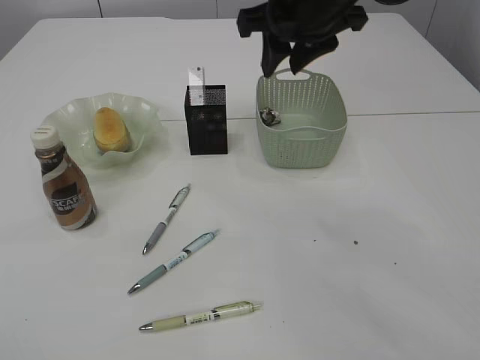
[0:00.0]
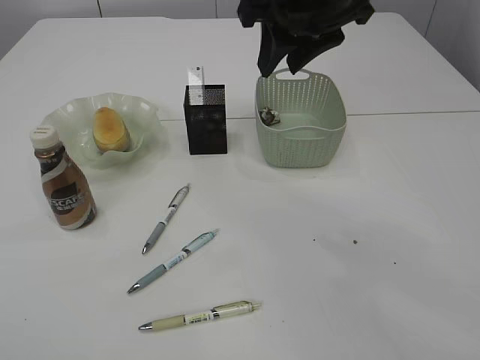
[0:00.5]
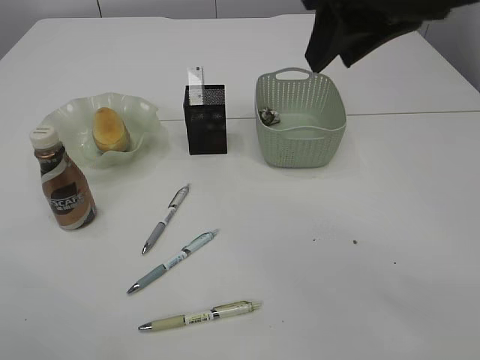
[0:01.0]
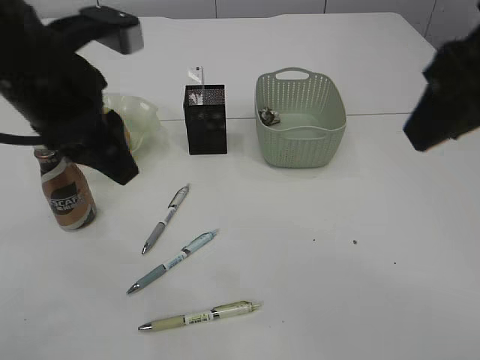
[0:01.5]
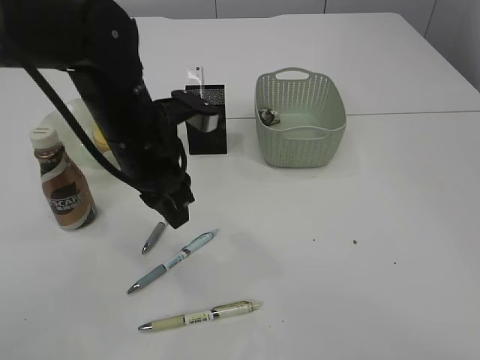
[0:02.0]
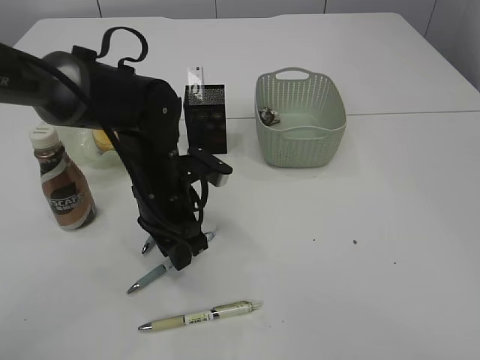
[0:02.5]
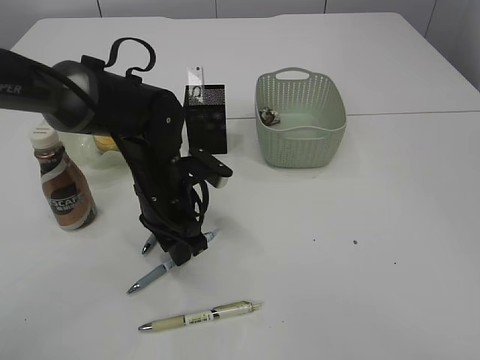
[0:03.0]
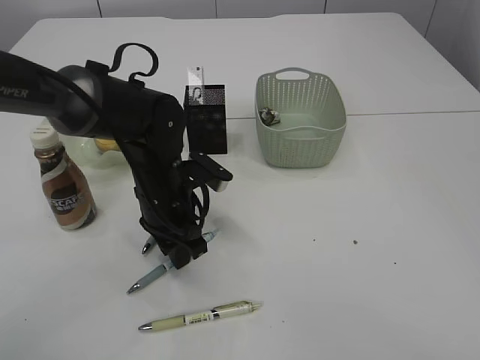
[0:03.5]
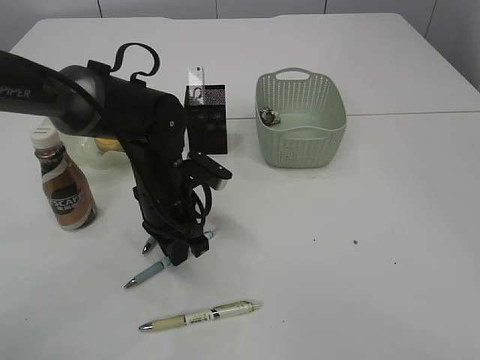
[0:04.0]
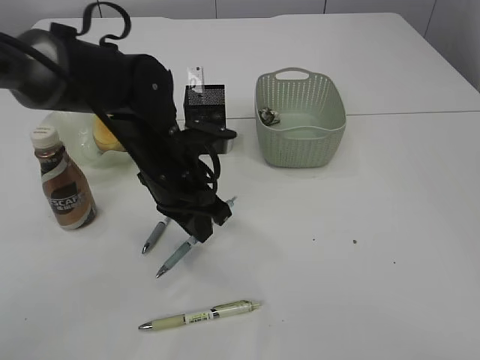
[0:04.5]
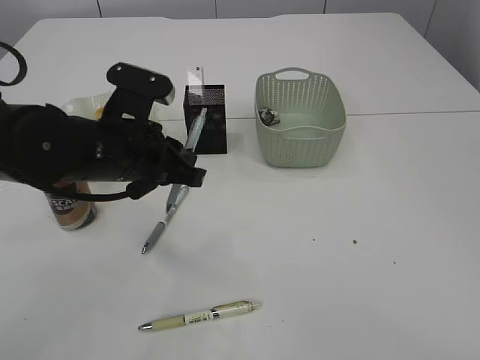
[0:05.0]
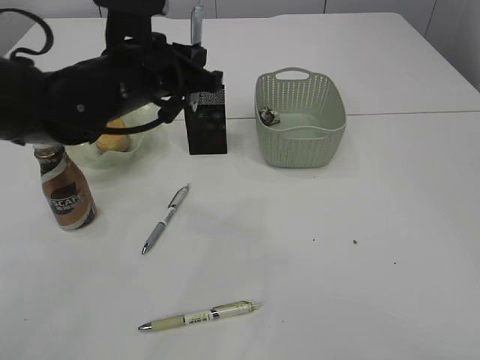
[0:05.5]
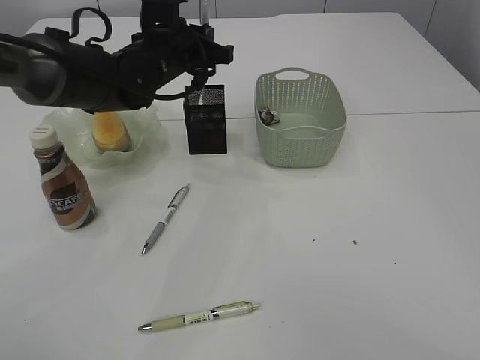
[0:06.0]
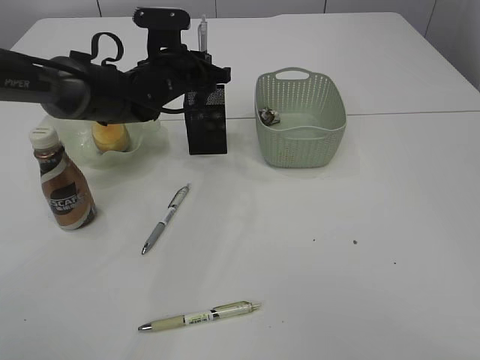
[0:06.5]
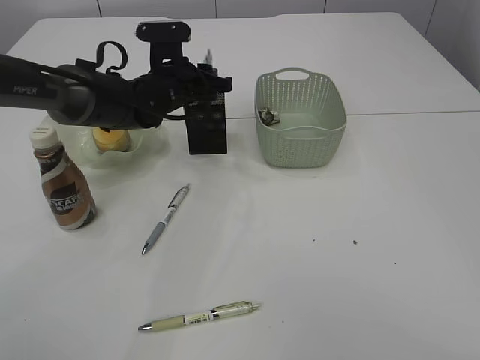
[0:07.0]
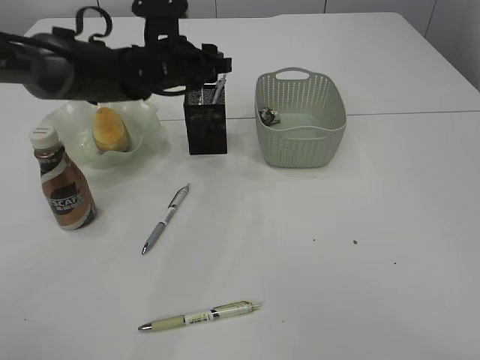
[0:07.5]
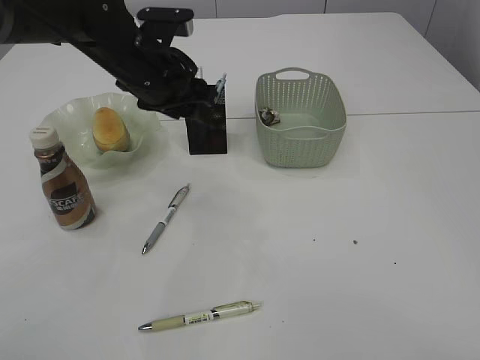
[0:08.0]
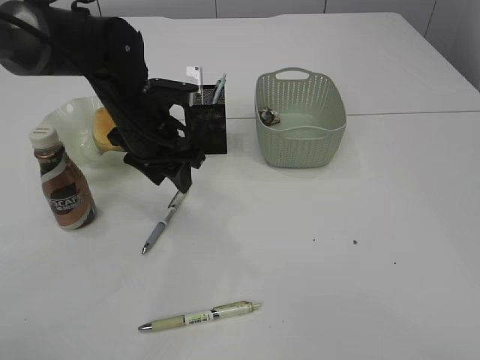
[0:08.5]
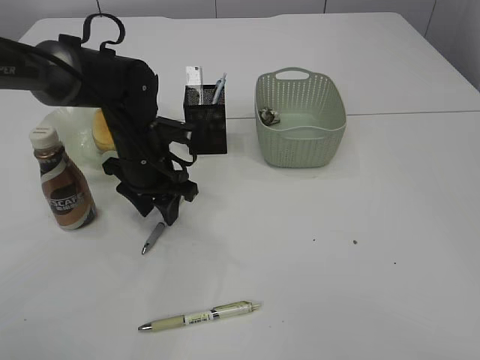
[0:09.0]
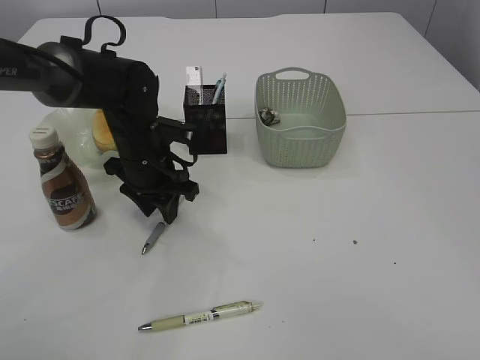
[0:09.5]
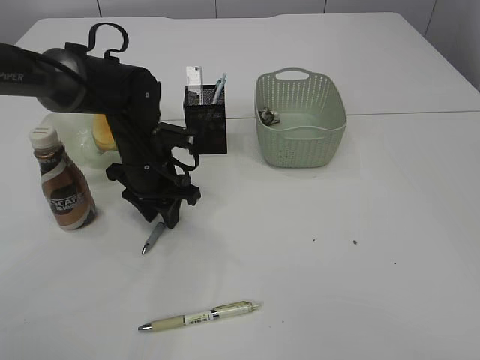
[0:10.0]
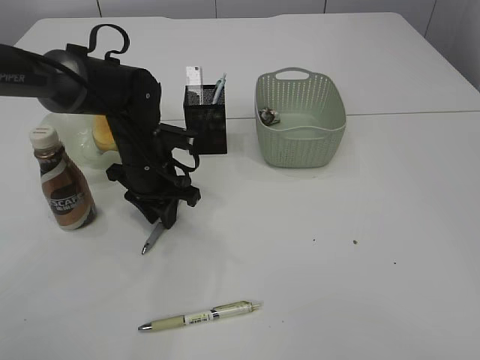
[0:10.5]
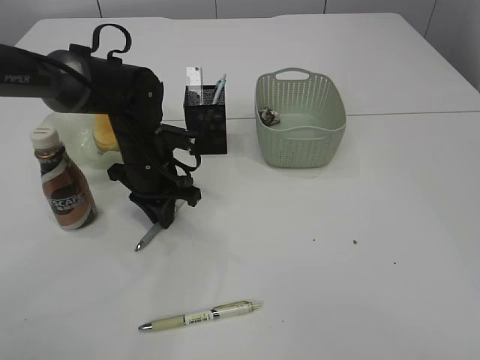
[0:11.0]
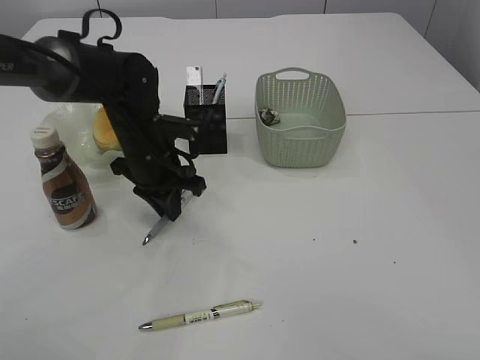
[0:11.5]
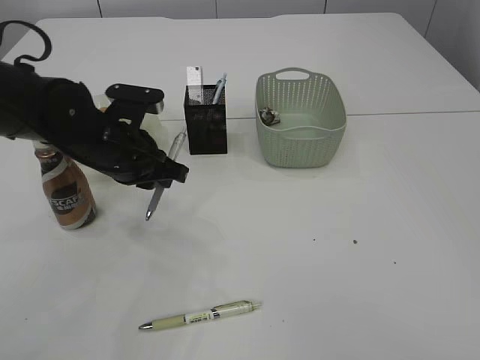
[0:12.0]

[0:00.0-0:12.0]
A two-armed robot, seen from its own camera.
Step, 0:00.0 to 0:04.5: Pick up the pen with left arm.
Step, 0:05.0 to 0:07.5: Place the pen into the pen holder.
Step, 0:08.0 to 0:11.5: Pick up the pen with left arm.
0:00.0 to 0:02.0: The right gripper goes roughly 30 cm backward and to the right. Meanwhile the left gripper moves forward and to the right, approximately 35 cm.
0:02.0 to 0:04.0: The left gripper moves downward, approximately 10 cm, and closes its fingers.
0:04.0 to 0:06.0: The left gripper shifts some 15 cm upward and forward.
0:06.0 to 0:08.0: The left gripper opens its fingers.
0:08.0 to 0:10.0: The left gripper travels downward by about 10 cm.
0:10.0 to 0:12.0: The left gripper moves some 5 cm, and closes.

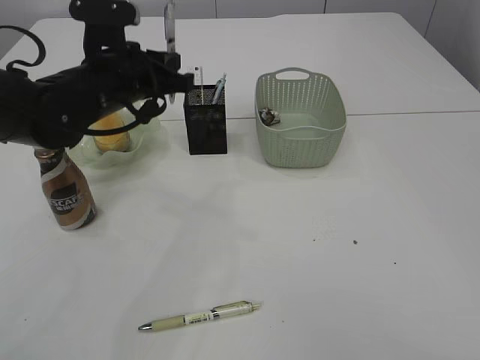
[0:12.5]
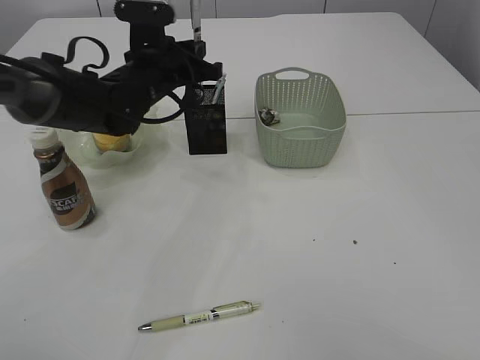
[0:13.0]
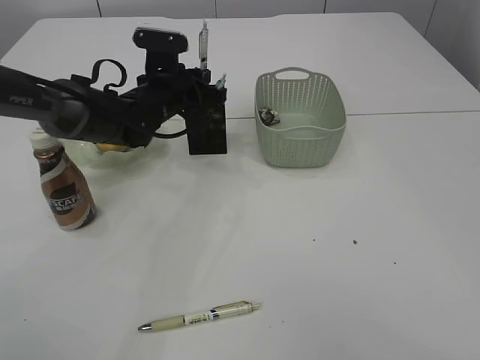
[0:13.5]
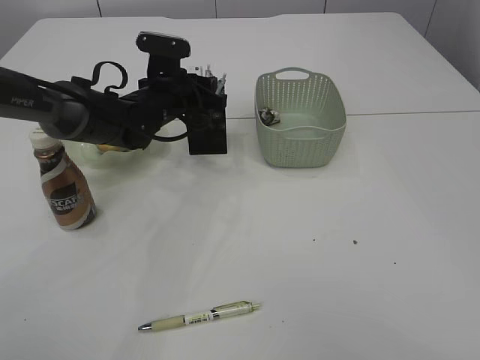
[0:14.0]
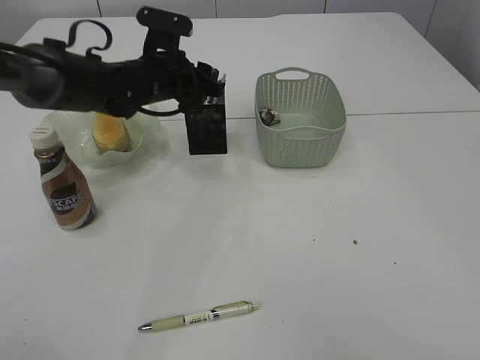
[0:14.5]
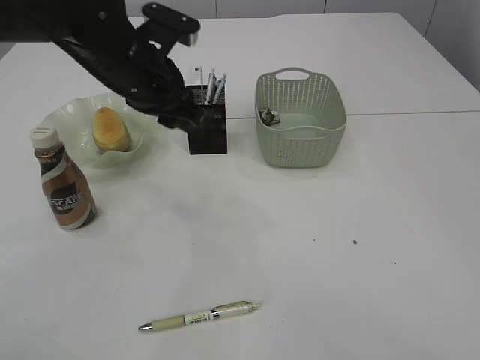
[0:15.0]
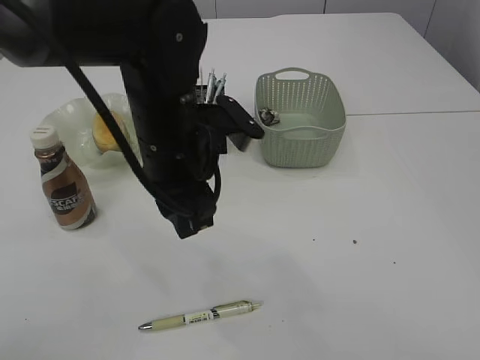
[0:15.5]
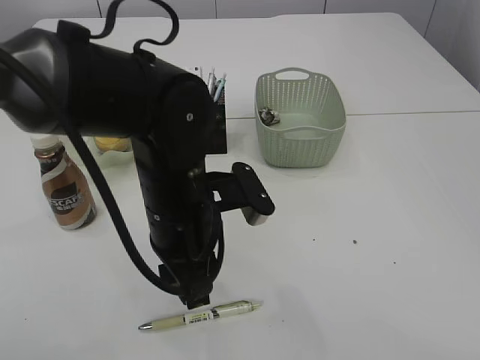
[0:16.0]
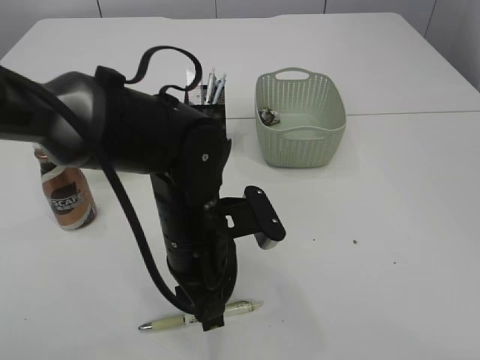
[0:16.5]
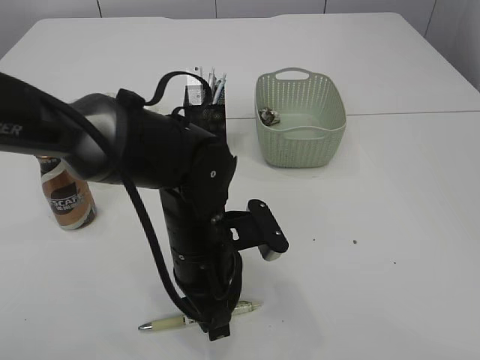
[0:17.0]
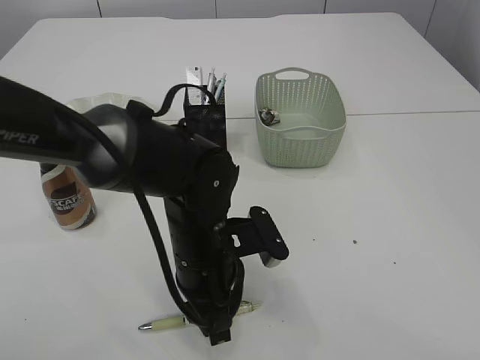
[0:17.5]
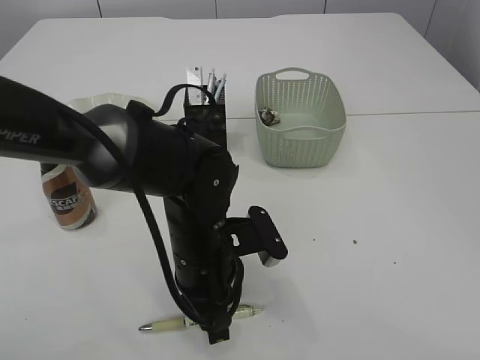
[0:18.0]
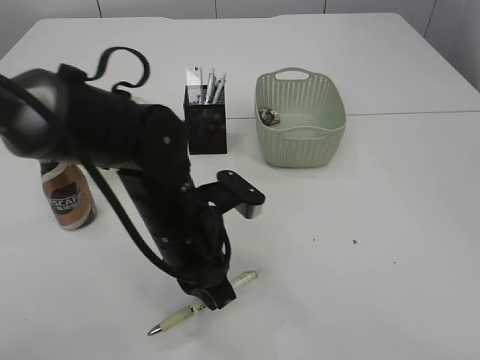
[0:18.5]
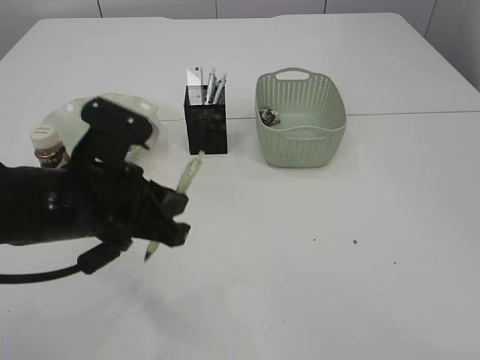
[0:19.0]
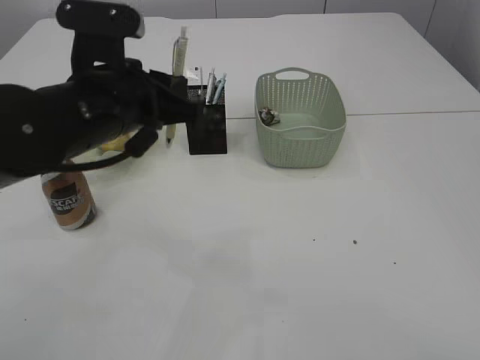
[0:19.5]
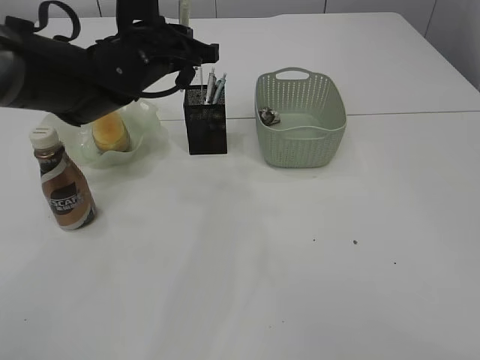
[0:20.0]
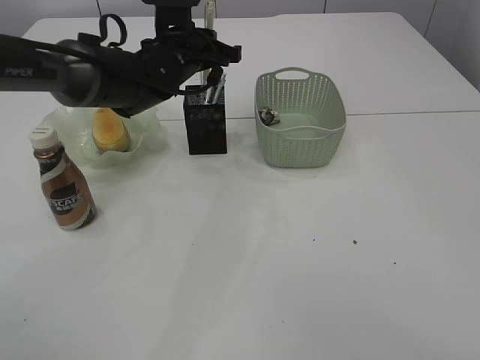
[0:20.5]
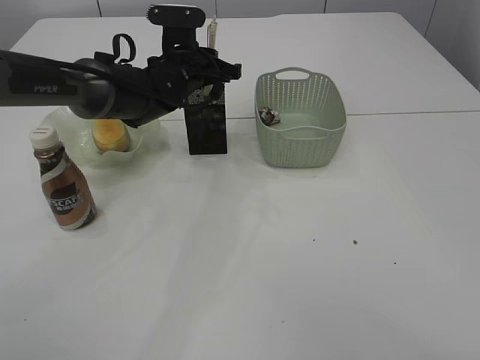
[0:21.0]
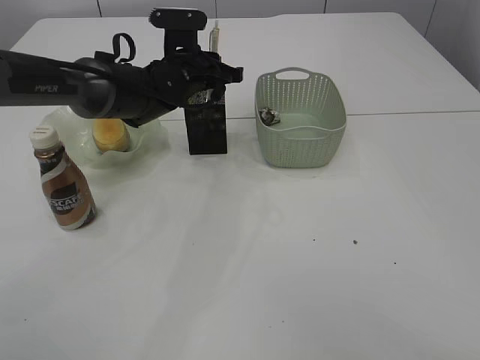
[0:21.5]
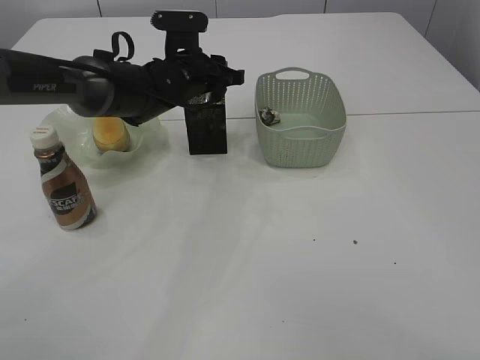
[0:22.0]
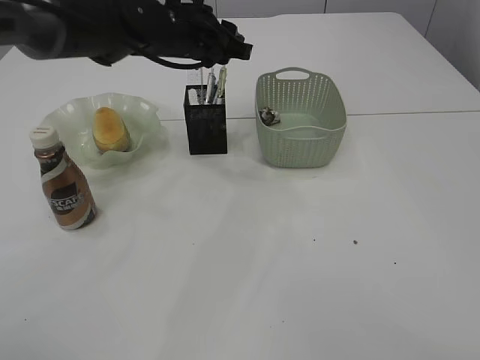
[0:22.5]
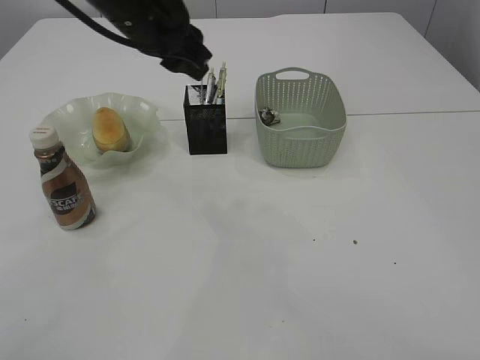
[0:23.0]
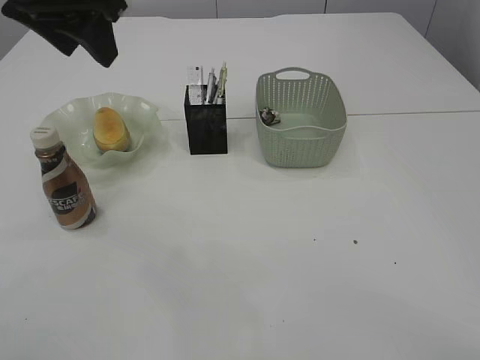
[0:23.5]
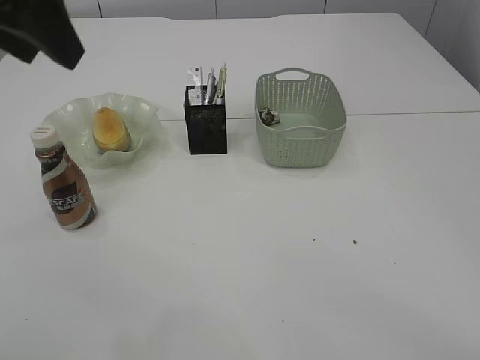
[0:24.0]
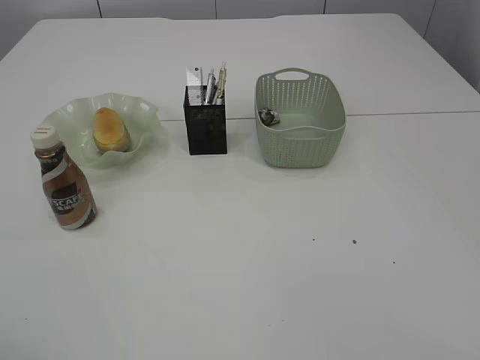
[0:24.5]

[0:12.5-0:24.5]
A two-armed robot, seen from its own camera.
Step, 0:12.5 to 0:14.5: Place the pen into the pen holder.
Step, 0:15.0 to 0:19.0: Pick up the pen with left arm.
Step, 0:19.5 to 0:22.5: Place the pen into the pen holder.
0:12.5 to 0:14.5: The left gripper travels forward by about 10 cm, and opens up.
0:14.5 to 0:16.5: The left gripper goes approximately 20 cm backward.
0:16.5 to 0:18.5: The left gripper closes up.
0:18.5 to 0:20.5: The left gripper goes some 20 cm forward.
0:20.5 to 0:22.5: The left gripper opens.
0:22.5 to 0:24.5: The left gripper is displaced backward, to the left and upward by approximately 40 cm.
